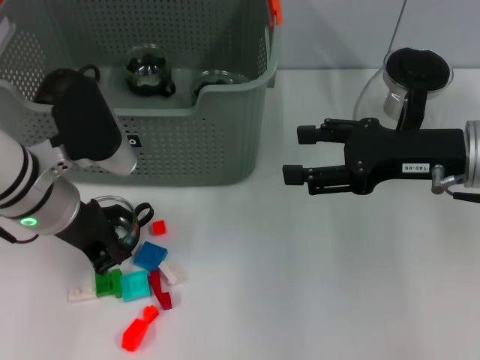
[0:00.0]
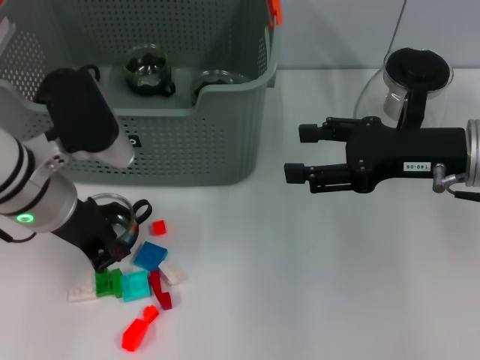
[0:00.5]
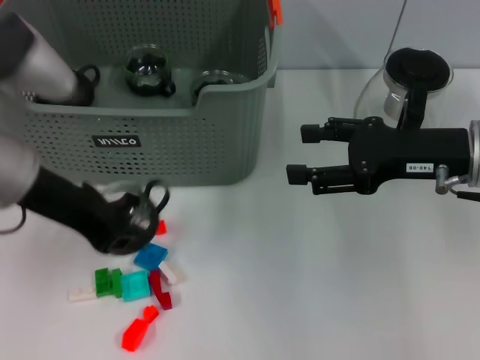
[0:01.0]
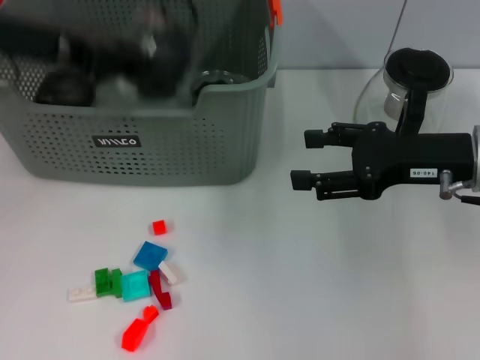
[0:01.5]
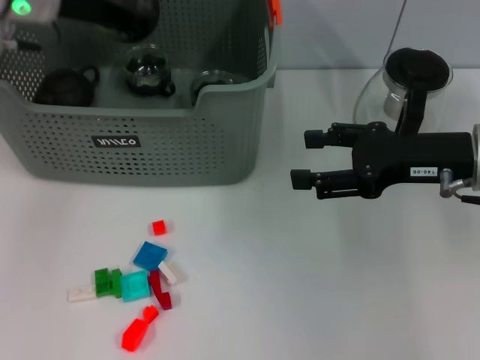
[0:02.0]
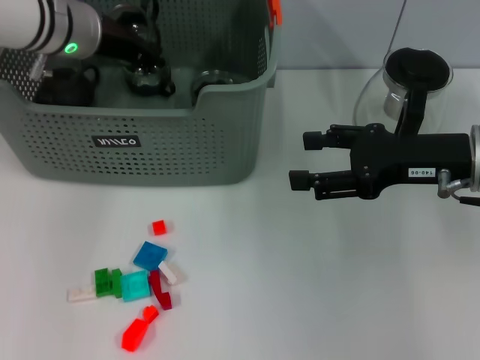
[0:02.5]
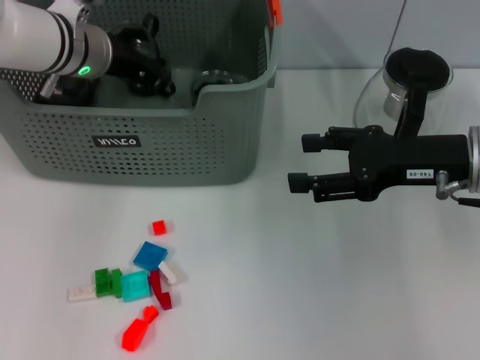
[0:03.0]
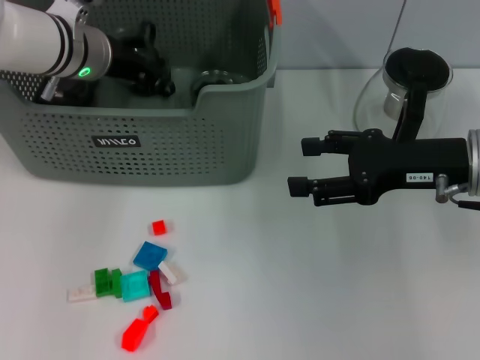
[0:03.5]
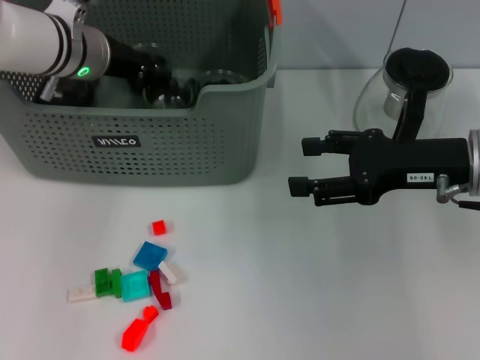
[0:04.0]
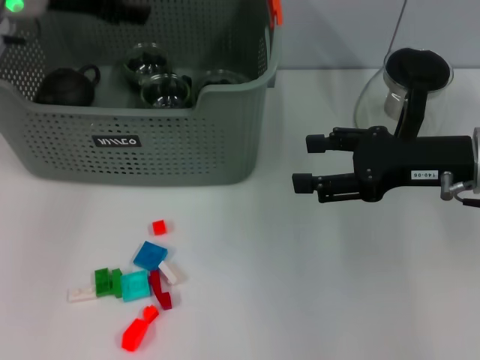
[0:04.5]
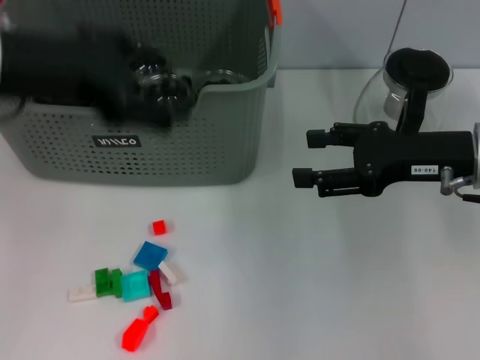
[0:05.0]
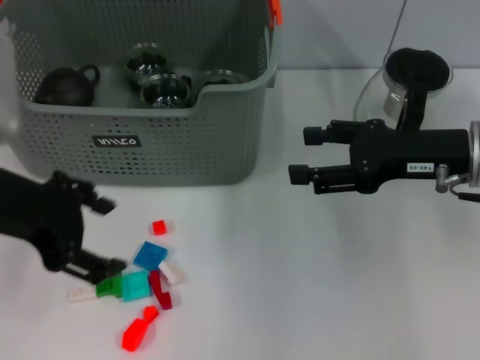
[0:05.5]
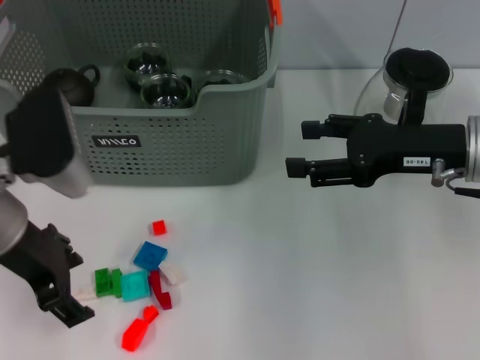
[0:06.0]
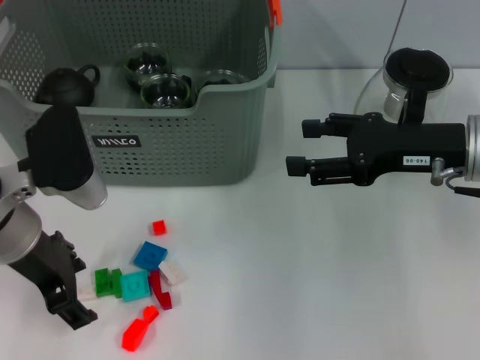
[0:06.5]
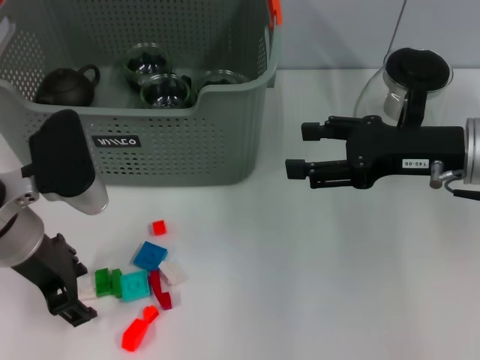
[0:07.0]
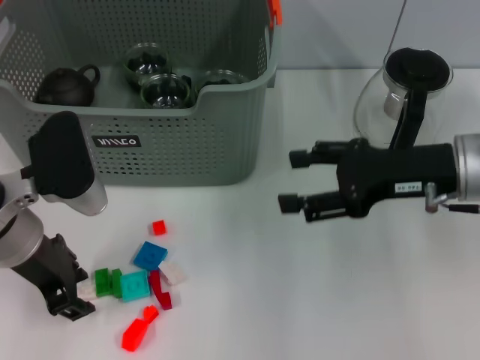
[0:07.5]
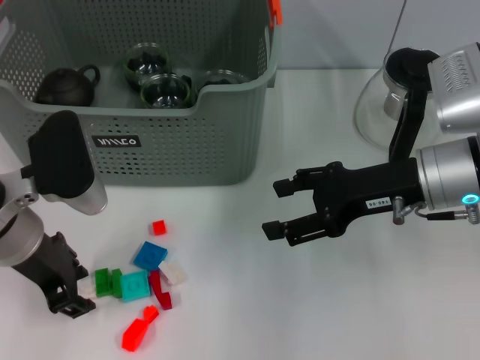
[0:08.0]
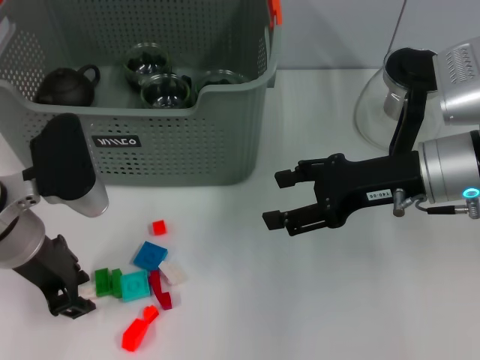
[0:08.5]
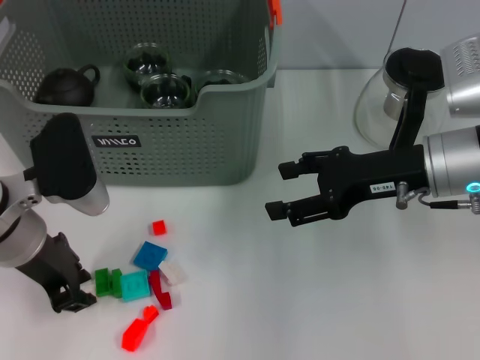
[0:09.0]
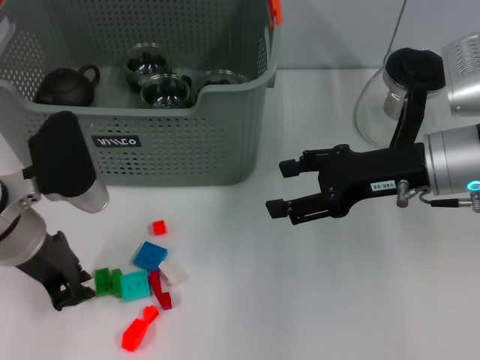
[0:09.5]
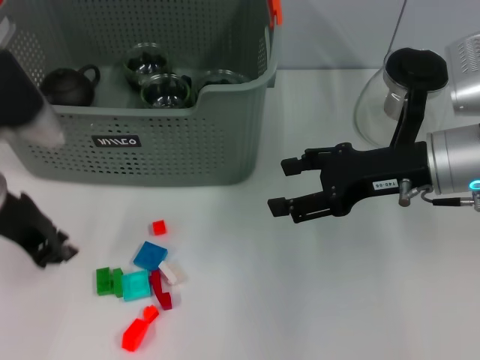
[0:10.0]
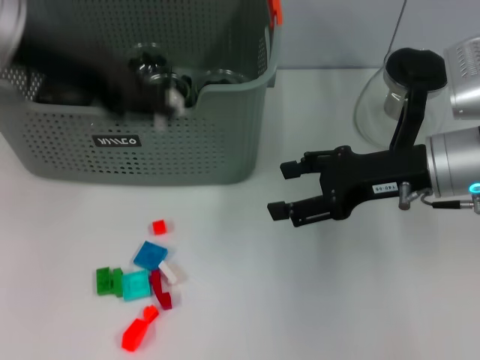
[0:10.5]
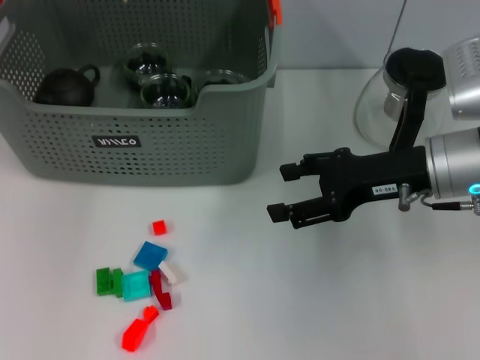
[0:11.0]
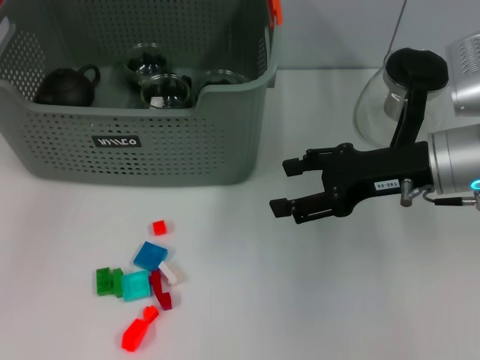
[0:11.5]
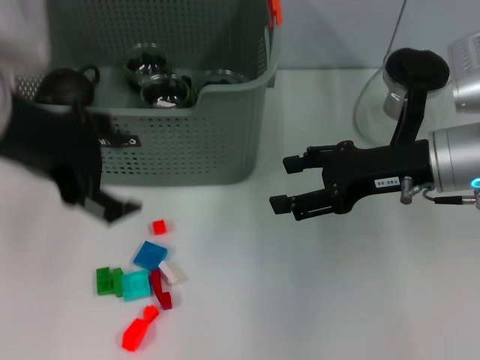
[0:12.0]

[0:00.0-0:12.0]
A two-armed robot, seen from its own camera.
Task of the whole recording: pick up the teacup on the table and place it into the storage bin, pick up the block on the table and place it into the storage bin.
Step, 0:00.0 to 0:04.5: Place the cup in the storage box with left gripper.
Step, 0:05.0 to 0:09.5: Grasp the white block with left gripper.
Step, 0:10.0 to 0:11.0: Place the white block in the storage box with left gripper.
0:00.0 to 0:02.0: The left gripper shifts some 15 cm forward and upward.
0:02.0 to 0:04.0: The left gripper heads downward, covering some 5 cm.
0:04.0 to 0:06.0: The left gripper goes some 15 cm backward, and opens its fingers.
0:06.0 to 0:08.0: The left gripper closes its fingers.
0:08.0 to 0:10.0: The left gripper moves about 5 cm, and closes.
0:10.0 to 0:12.0: The left gripper goes some 10 cm upward, travels forward and back again, some 15 cm each way, and opens.

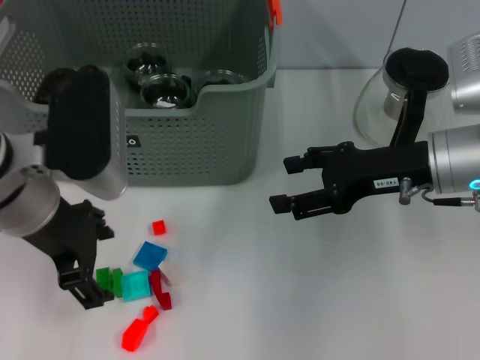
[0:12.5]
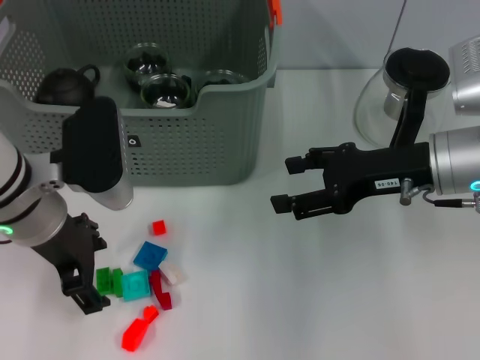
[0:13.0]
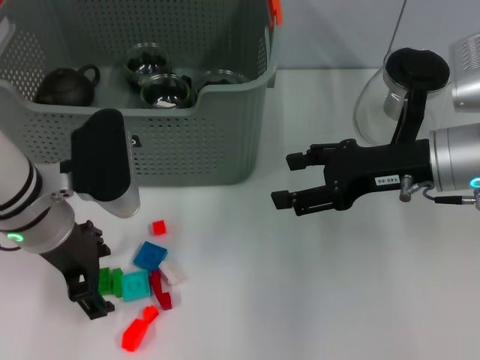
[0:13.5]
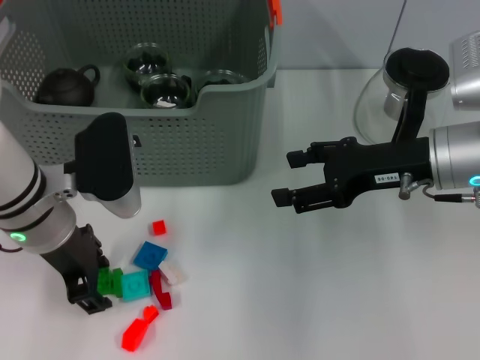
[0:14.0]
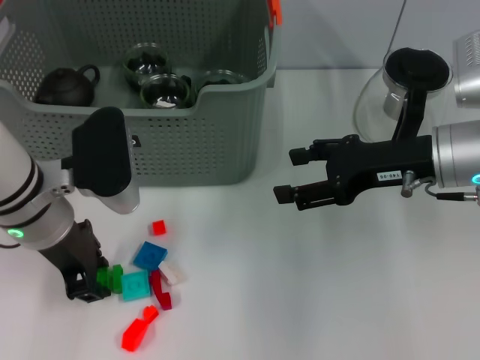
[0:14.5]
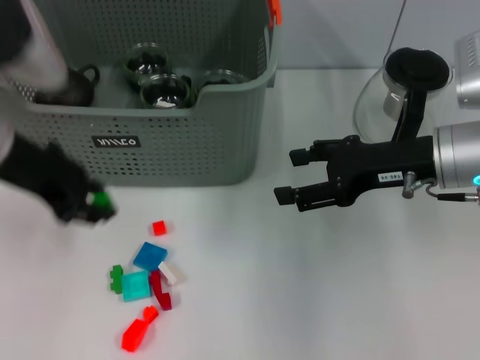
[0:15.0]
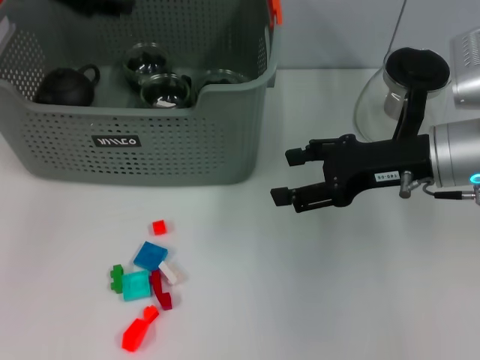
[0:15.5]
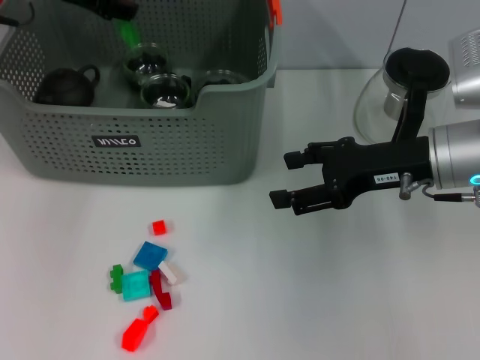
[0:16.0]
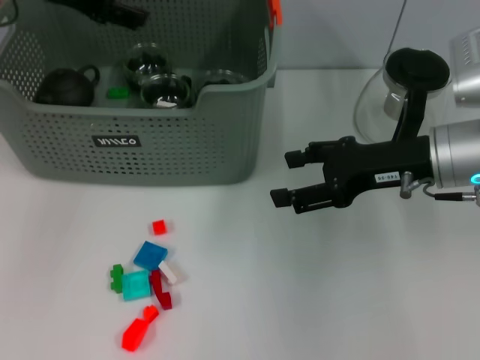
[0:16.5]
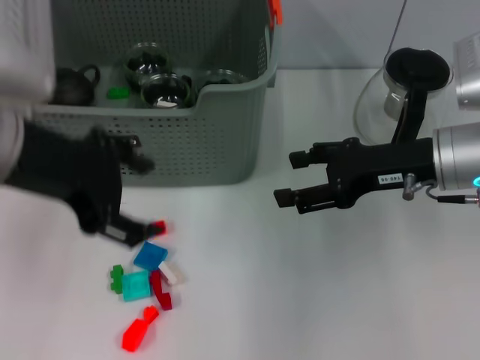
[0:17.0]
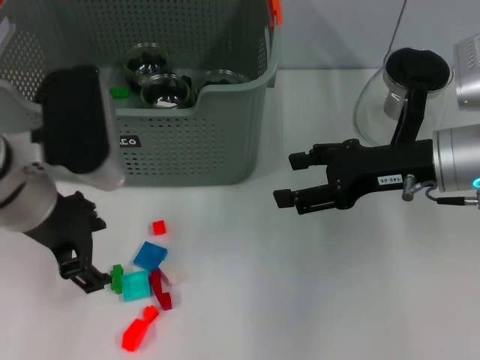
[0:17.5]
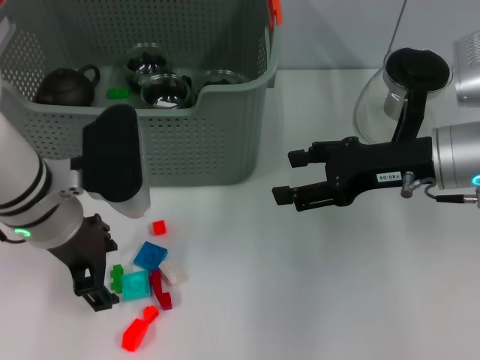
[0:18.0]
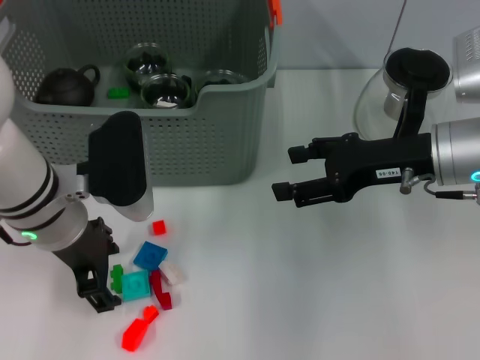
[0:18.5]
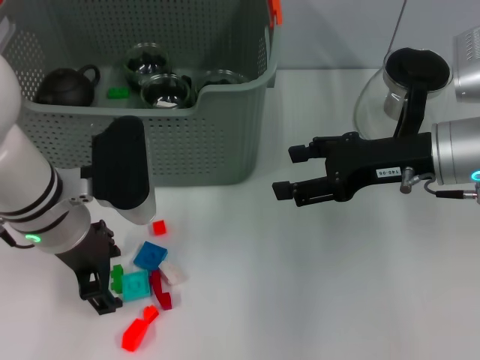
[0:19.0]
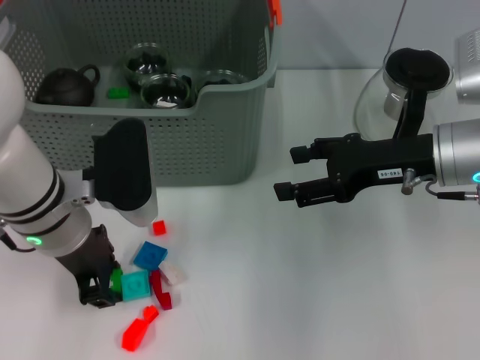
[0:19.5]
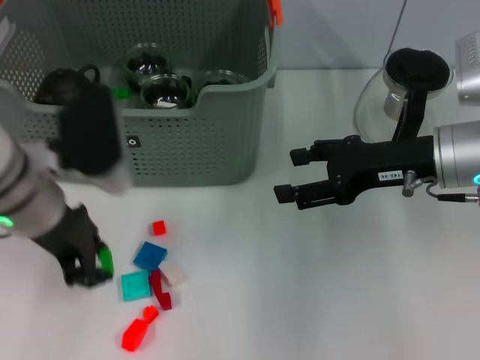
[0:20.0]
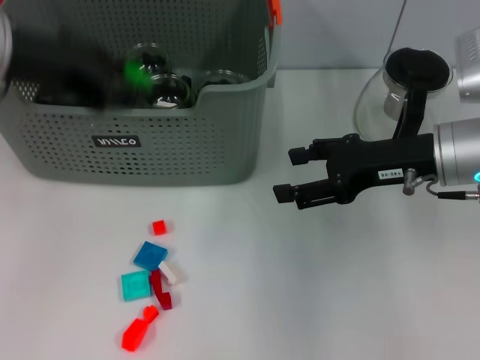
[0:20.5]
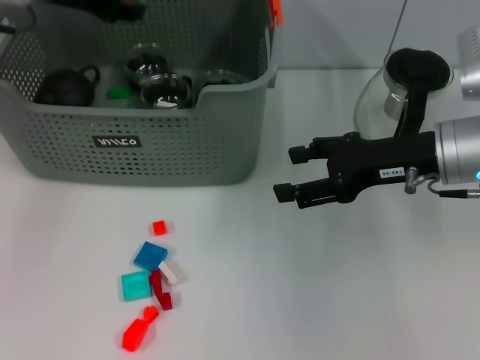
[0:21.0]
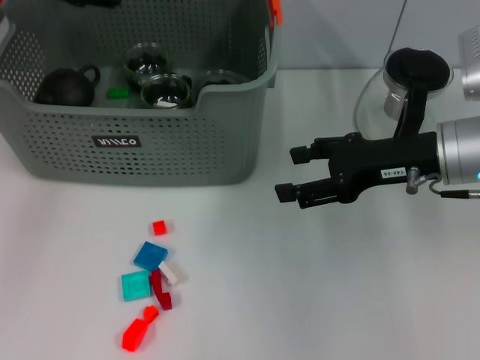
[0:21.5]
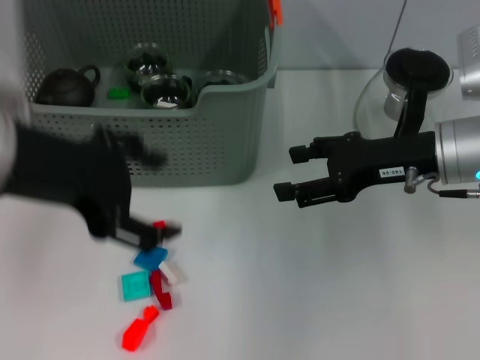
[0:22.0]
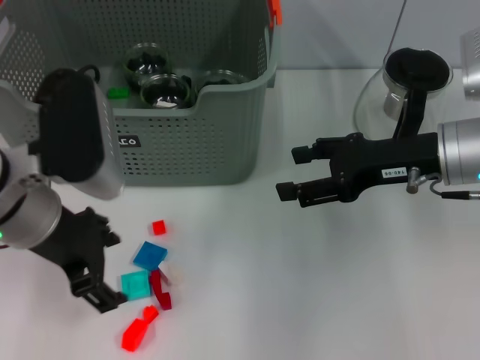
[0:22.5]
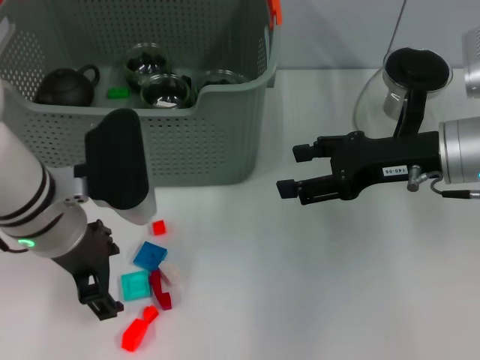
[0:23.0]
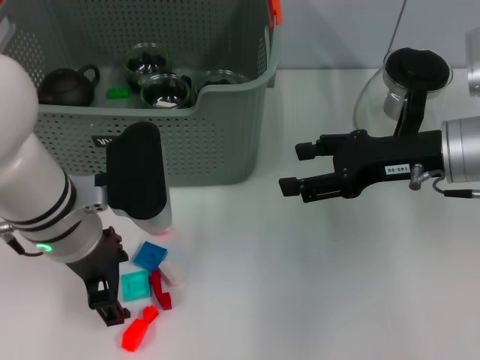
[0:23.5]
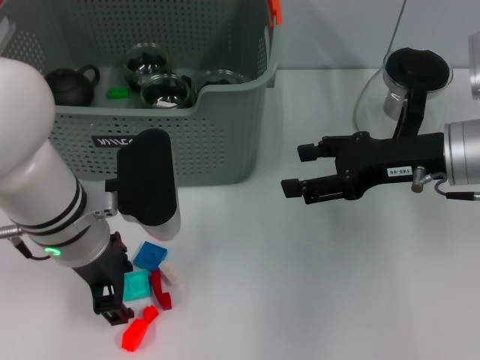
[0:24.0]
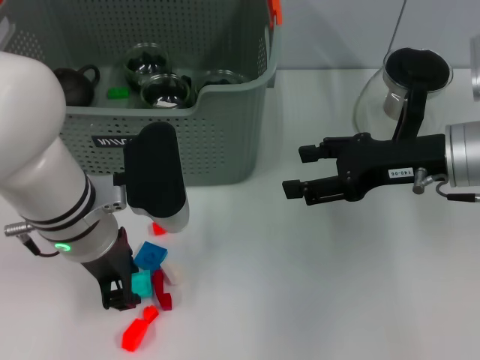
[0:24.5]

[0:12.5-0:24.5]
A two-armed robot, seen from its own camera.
Task of the whole recording: pick up the teacup on the table and place it into the storage bin, pick up the block on the table and place it into the storage bin.
Step, 0:12.5 to 0:14.0: Grasp the green block with left gripper.
Step, 0:15.0 to 0:16.0: Place the green block in the storage box with left gripper.
Step, 0:16.5 to 0:19.5: Grasp the green block with left gripper.
Step, 0:20.0 to 0:21.5: Place the green block in the storage box with left gripper.
0:12.5 to 0:14.5: The left gripper goes approximately 5 cm downward, and closes its fingers.
0:14.5 to 0:16.5: The left gripper is displaced upward and forward by approximately 15 cm, and opens.
0:16.5 to 0:18.5: The left gripper heads downward and backward, covering some 20 cm.
0:18.5 to 0:20.5: The left gripper shifts roughly 15 cm upward, and closes.
0:20.5 to 0:22.5: The left gripper is displaced downward by roughly 10 cm, travels forward and back again, approximately 10 cm each way, and opens.
0:22.5 to 0:24.5: The left gripper moves roughly 5 cm, and closes its fingers.

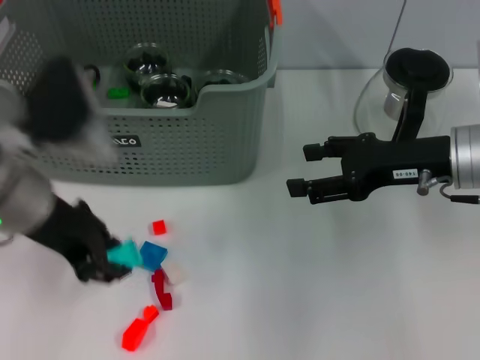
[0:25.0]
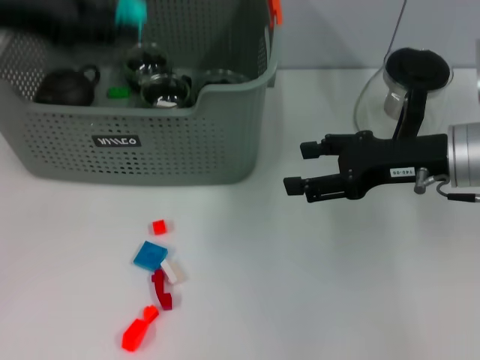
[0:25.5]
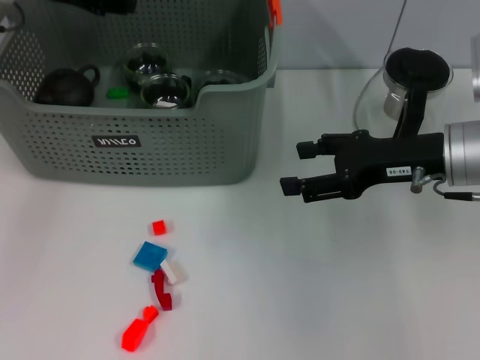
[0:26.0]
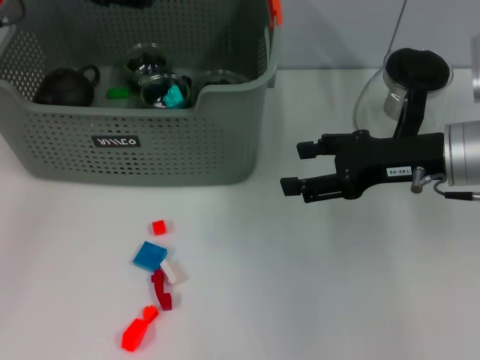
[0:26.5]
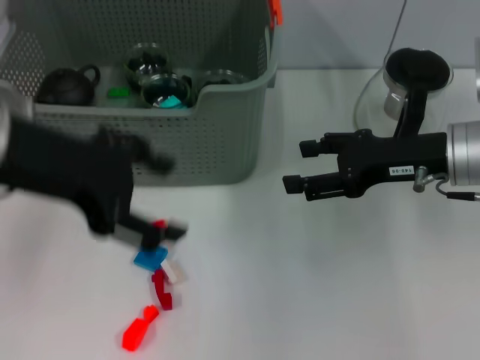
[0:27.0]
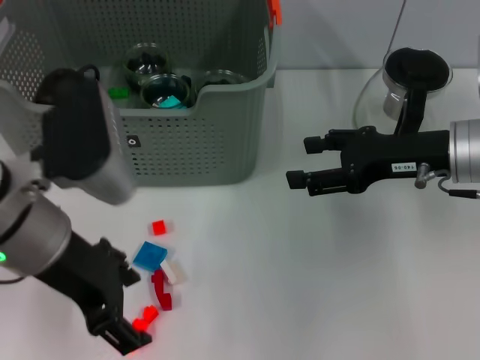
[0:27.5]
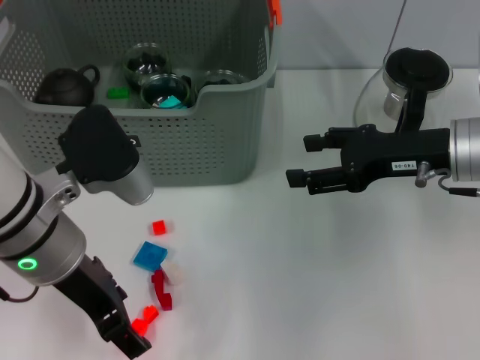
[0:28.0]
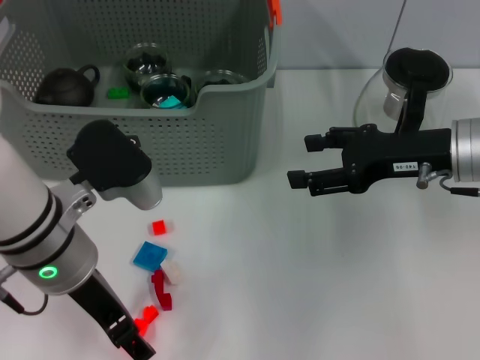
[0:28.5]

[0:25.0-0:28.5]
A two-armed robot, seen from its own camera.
Task of the whole recording: pick up the teacup on the table and place it into the storage bin, pick up the block on the table and place it into the storage bin.
Step, 0:25.0 to 0:26.5: Place the light blue block in the storage box with left gripper.
0:25.0 to 0:27.0: The left gripper shifts approximately 10 cm upward, travels forward and back again, about 15 cm each way, and opens.
0:27.0 to 0:28.5: The left gripper moves downward and to the right, some 10 cm.
